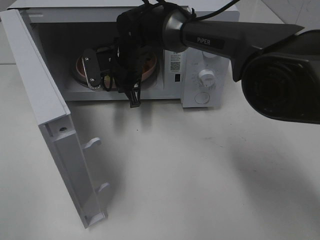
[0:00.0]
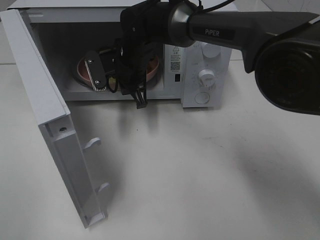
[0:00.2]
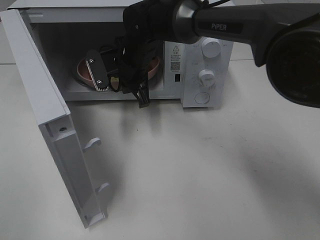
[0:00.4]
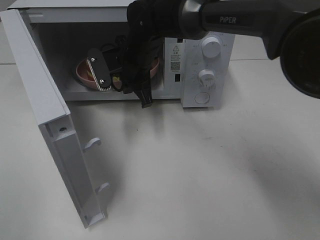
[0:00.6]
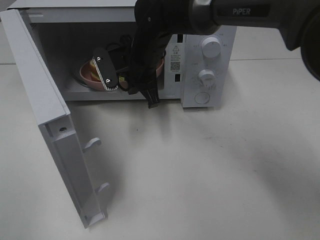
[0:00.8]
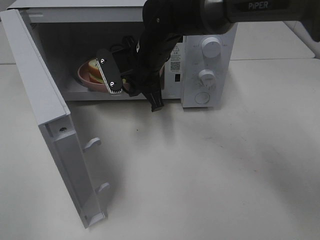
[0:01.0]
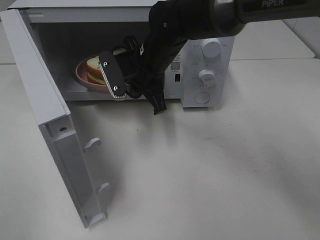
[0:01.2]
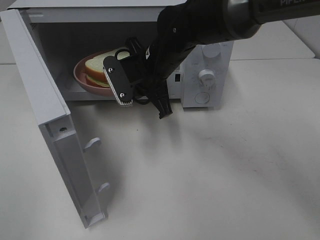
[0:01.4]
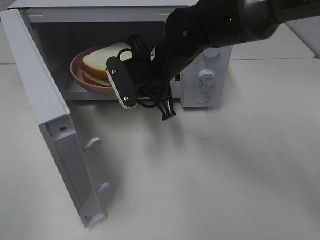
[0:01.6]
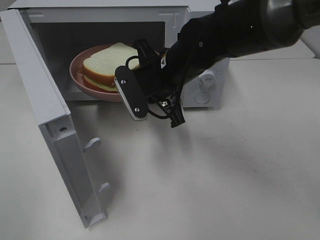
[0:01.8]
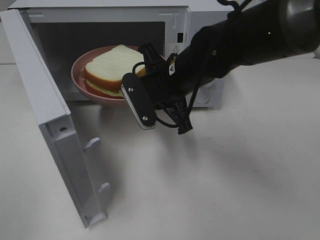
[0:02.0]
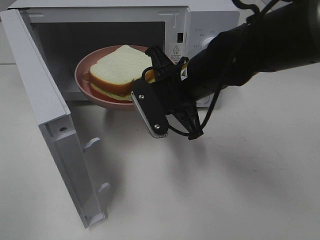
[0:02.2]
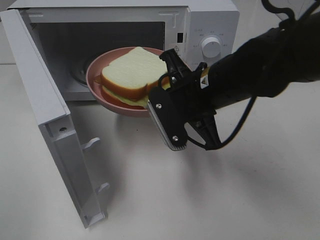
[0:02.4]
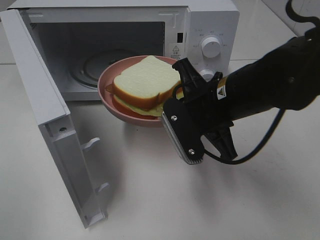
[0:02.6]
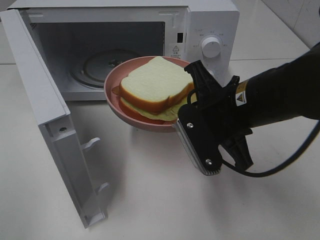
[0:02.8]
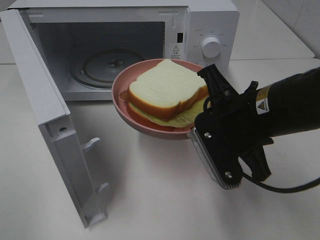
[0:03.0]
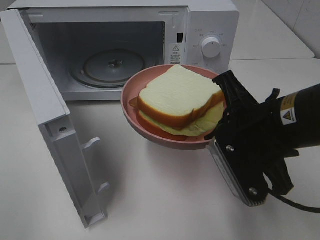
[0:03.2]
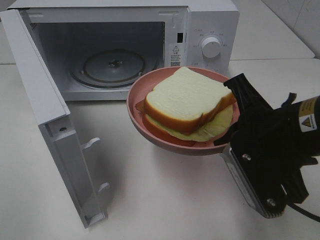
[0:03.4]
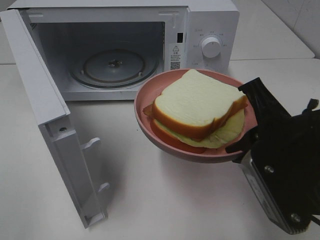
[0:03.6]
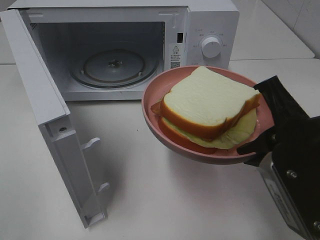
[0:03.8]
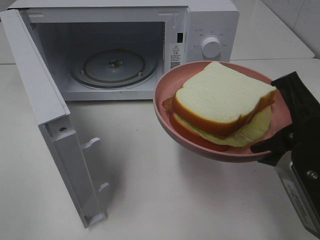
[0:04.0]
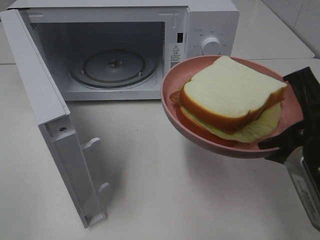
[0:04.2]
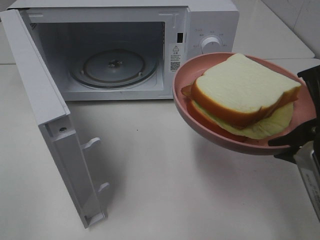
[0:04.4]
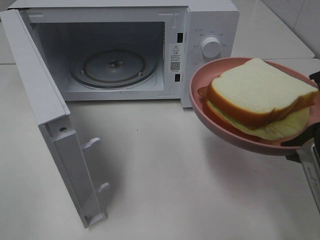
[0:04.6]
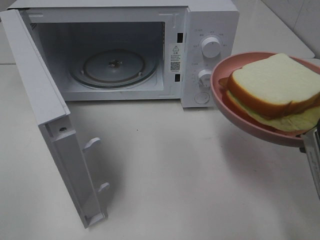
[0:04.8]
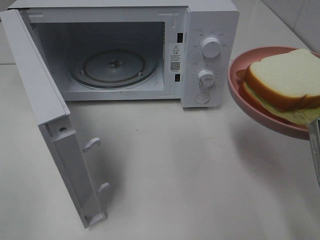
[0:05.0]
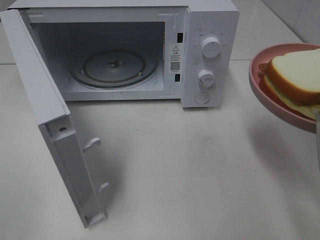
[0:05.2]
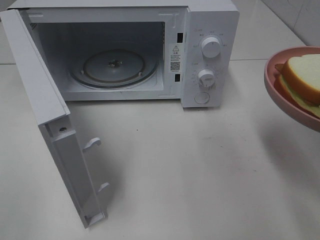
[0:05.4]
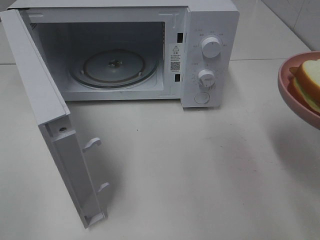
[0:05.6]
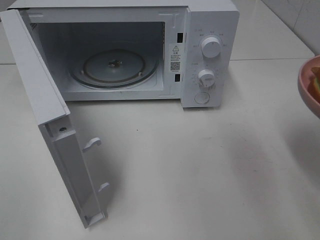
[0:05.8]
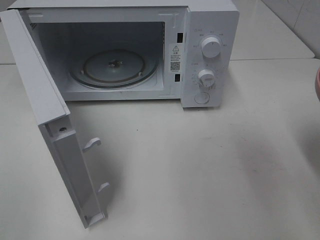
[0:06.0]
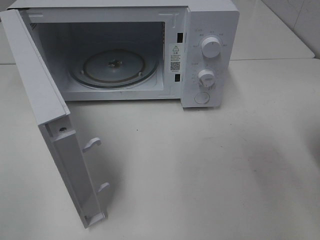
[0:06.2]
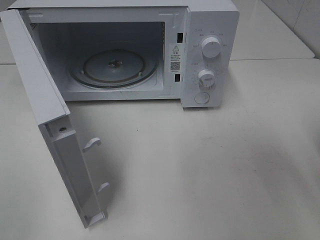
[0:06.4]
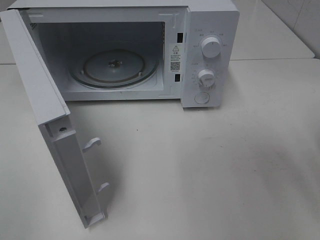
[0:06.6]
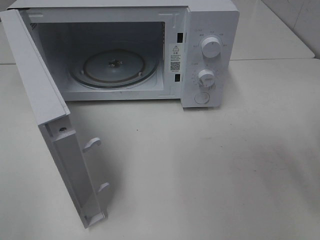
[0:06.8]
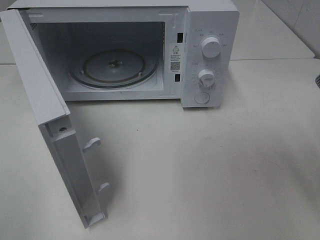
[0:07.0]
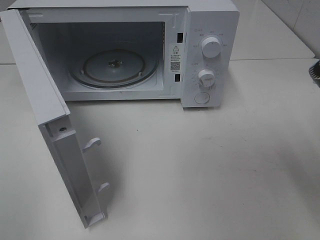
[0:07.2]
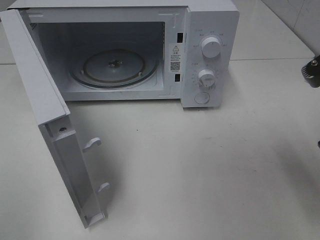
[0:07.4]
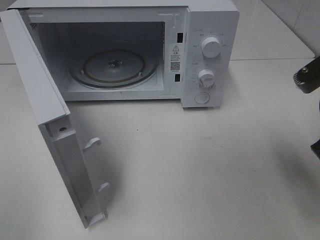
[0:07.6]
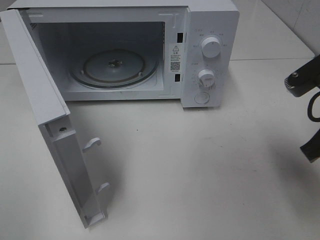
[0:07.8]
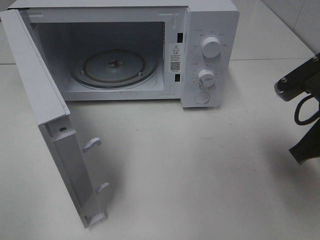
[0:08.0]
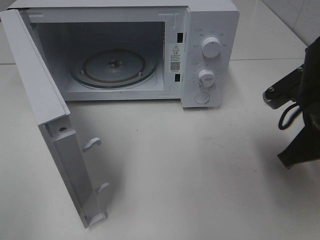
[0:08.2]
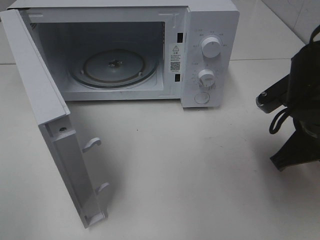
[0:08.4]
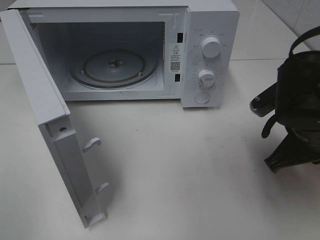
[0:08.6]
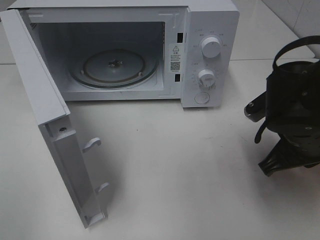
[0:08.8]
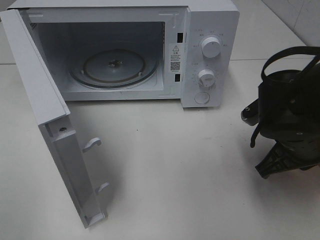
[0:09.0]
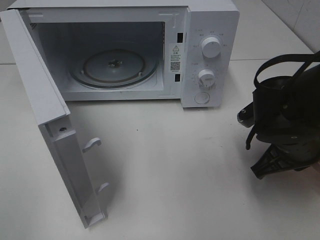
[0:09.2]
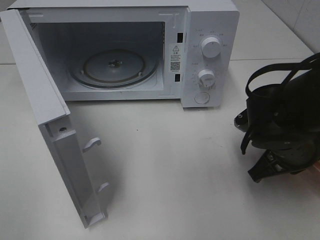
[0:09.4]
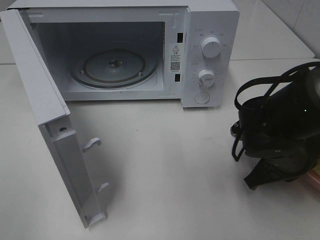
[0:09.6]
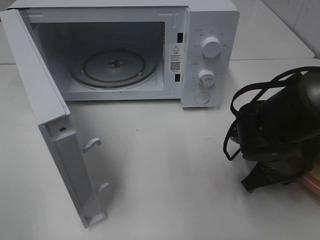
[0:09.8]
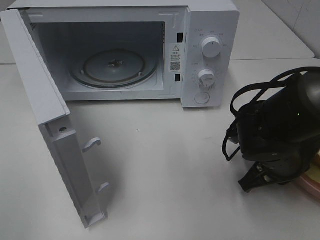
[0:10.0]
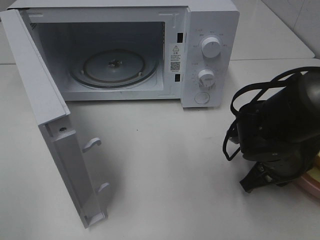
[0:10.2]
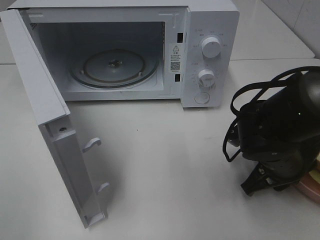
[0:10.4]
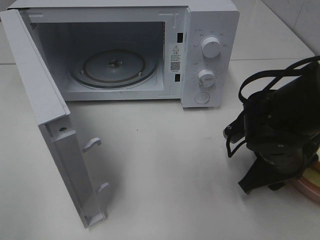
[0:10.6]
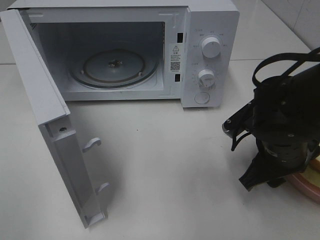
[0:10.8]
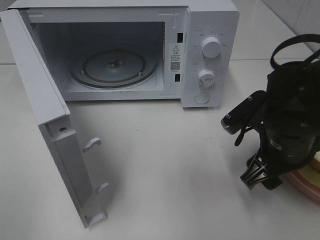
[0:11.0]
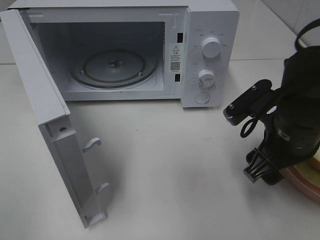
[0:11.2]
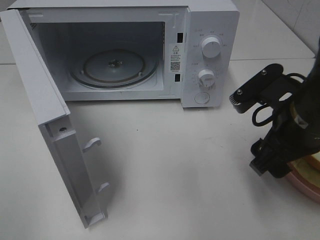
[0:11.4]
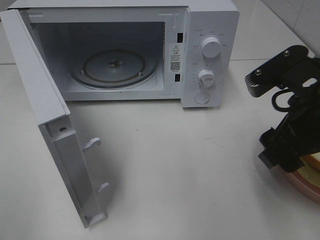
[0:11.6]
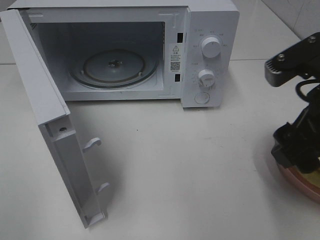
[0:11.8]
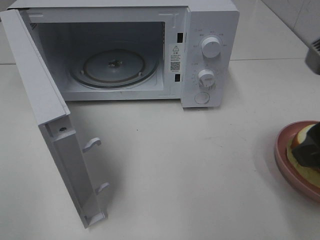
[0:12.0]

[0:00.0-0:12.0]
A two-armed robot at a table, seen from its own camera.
Task of the whole recording: Heat Sandwich.
Step, 0:00.0 to 0:11.8: Right hand: place the plate on the table.
0:00.0 to 0:01.6: The right gripper is displaced backward and to the right by about 10 cm.
0:01.6 to 0:03.0: The right gripper is displaced backward and to the right by some 20 cm.
0:03.0 to 0:04.4: The right gripper shifts some 10 cm backward and to the right.
0:04.4 to 0:06.0: The right gripper is displaced to the right by about 5 cm.
0:06.0 to 0:07.6: The right gripper shifts approximately 5 cm forward.
0:07.6 to 0:09.0: The right gripper travels downward by roughly 10 cm.
0:09.0 to 0:10.4: The right gripper travels downward by roughly 5 cm.
0:10.4 to 0:12.0: The right gripper shifts some 20 cm upward and backward, and opens up.

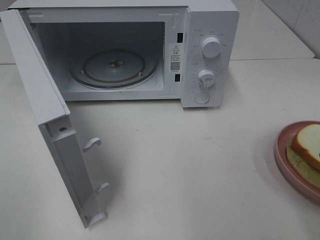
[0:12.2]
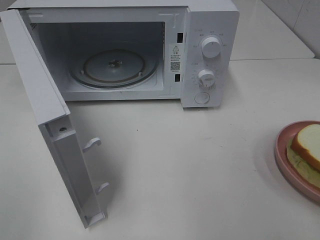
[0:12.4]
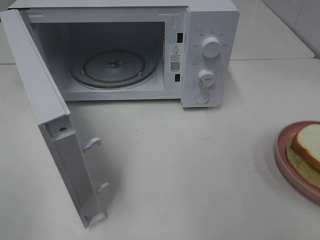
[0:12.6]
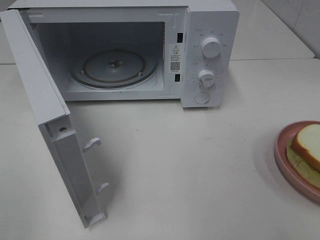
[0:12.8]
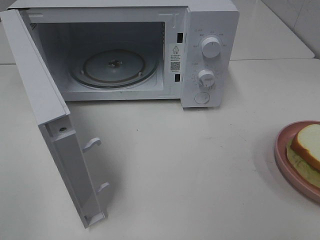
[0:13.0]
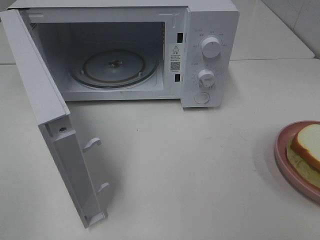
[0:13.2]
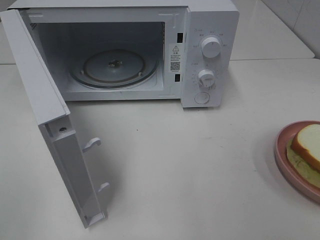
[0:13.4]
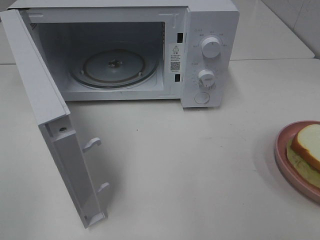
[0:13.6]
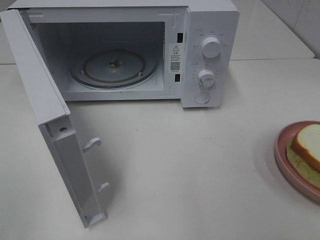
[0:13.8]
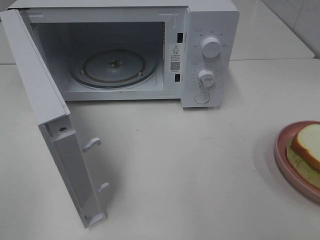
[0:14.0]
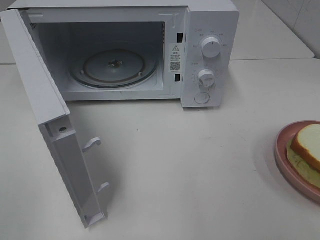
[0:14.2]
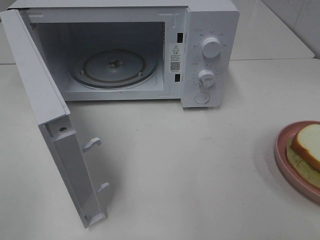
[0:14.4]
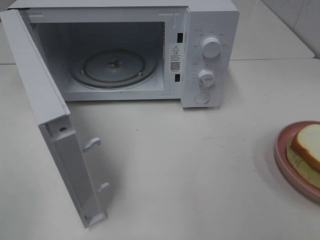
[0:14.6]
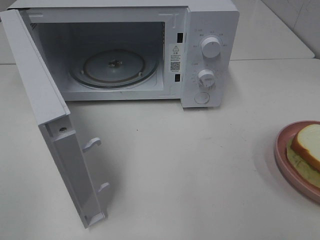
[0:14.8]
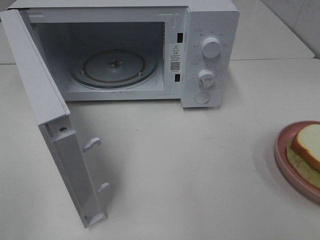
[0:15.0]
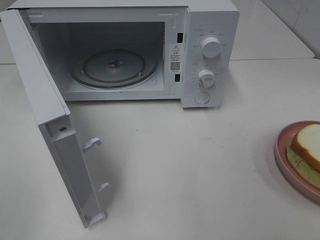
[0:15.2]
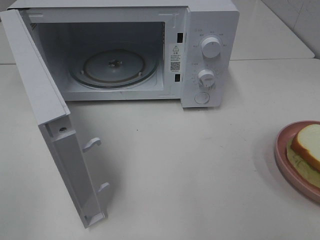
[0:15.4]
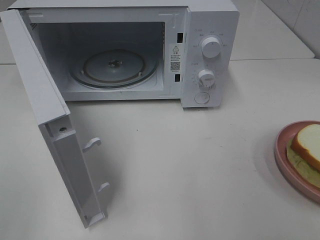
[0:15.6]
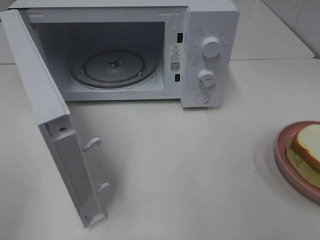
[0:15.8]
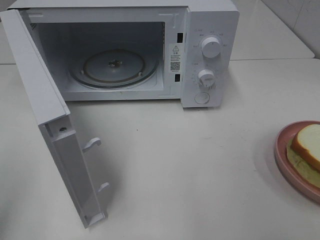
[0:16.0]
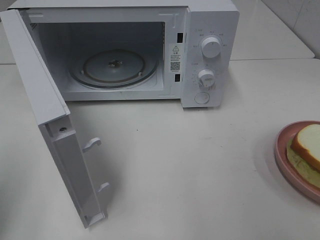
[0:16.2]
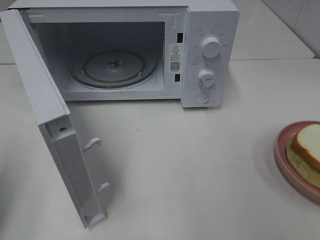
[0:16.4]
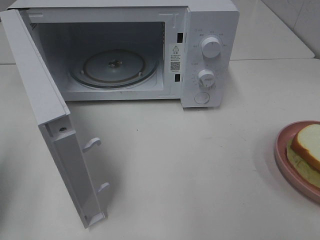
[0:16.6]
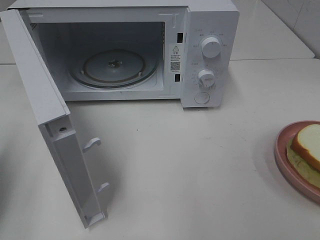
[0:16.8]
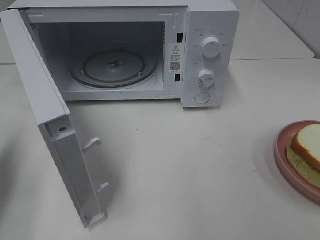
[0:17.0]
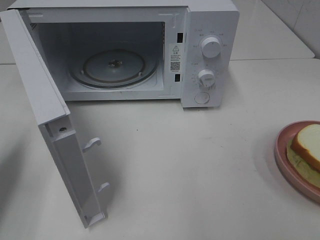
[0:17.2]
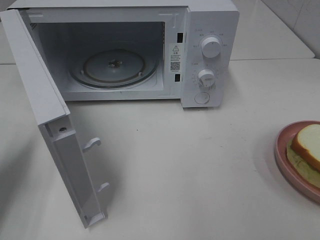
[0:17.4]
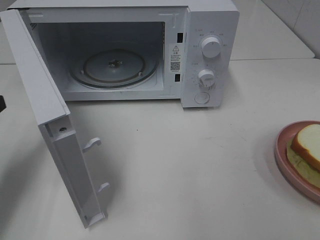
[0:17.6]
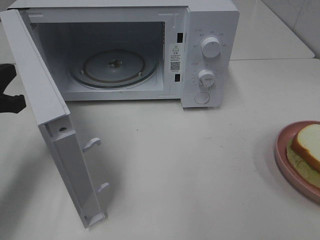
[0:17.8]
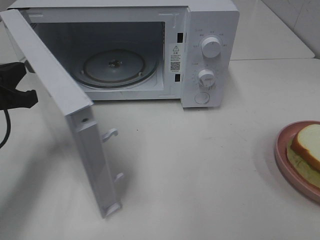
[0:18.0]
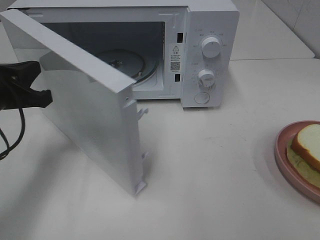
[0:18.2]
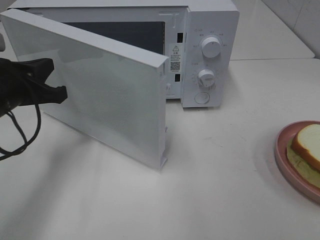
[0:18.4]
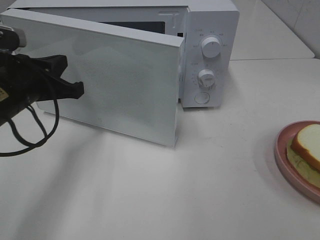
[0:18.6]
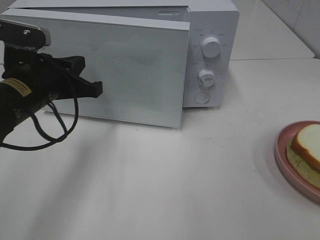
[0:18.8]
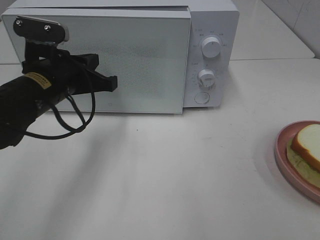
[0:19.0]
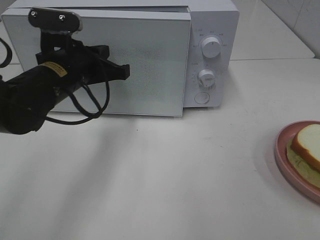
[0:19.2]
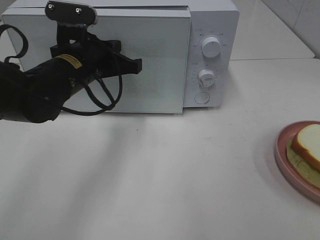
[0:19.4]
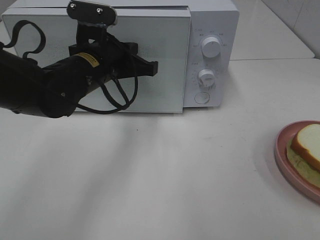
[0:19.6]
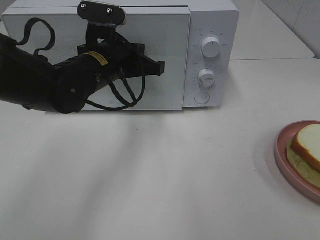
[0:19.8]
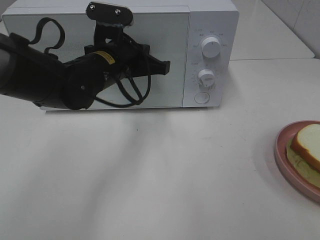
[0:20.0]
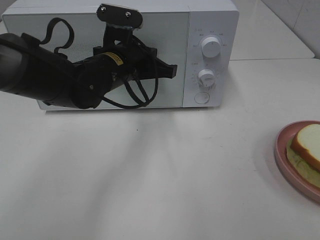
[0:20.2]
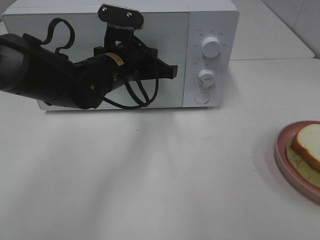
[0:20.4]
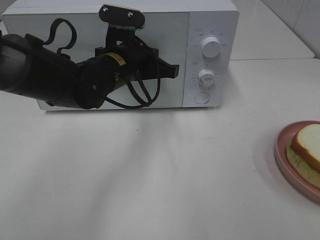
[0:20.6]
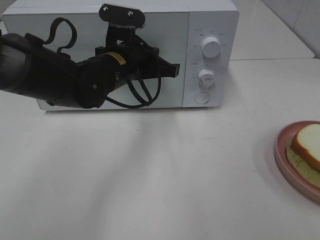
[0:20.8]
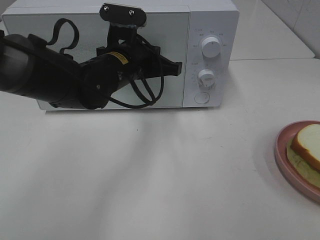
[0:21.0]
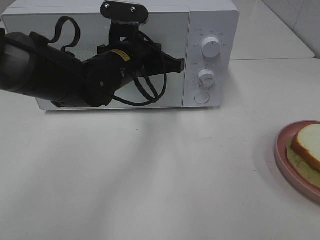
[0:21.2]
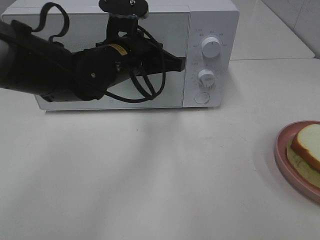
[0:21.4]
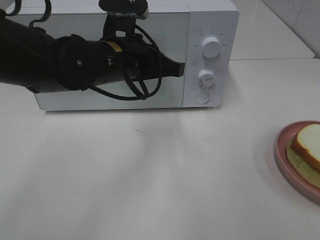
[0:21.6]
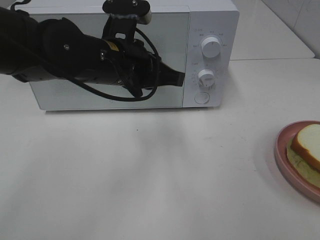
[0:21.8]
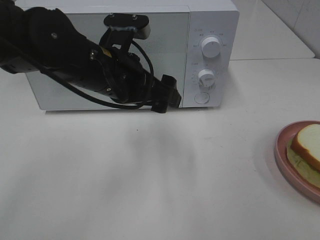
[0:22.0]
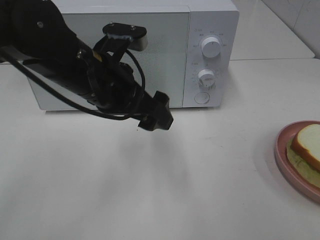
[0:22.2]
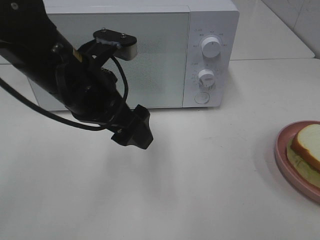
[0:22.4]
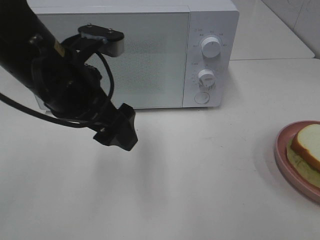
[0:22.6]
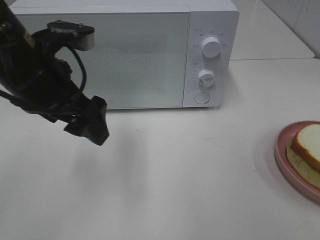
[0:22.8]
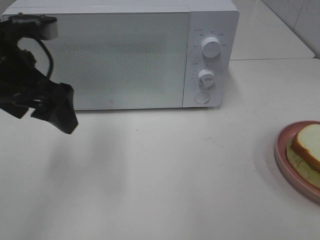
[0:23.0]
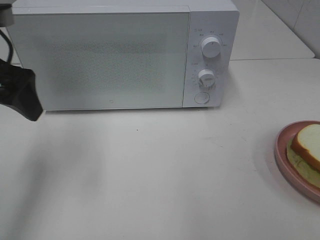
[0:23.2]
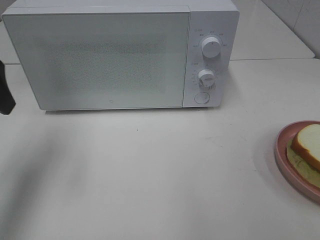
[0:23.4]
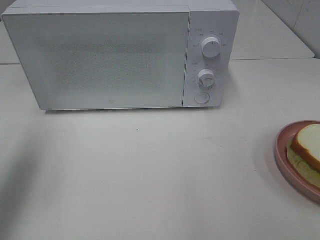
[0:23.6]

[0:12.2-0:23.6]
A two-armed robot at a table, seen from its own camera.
Task of the whole recording: Heat Sandwich.
Step, 0:12.2 to 0:20.6: Left hand: close the microwave door.
0:13.6 to 0:15.0: Neither gripper changes place.
0:15.0 to 0:16.4: The left gripper heads forward, covering some 15 cm, and closes up.
0:16.4 to 0:17.8: The left gripper travels forward, downward and to the right by roughly 15 cm.
0:17.8 to 0:19.4: The left gripper heads to the right and forward, covering some 20 cm.
0:19.4 to 0:20.8: The left gripper shifts about 5 cm to the right.
0:20.8 to 0:22.2: The left gripper travels backward by approximately 10 cm, and opens.
0:22.2 to 0:23.6: The left gripper travels to the left by about 25 cm.
